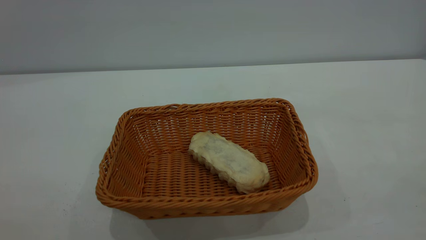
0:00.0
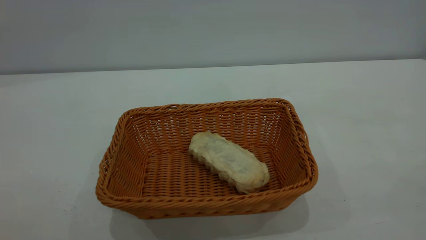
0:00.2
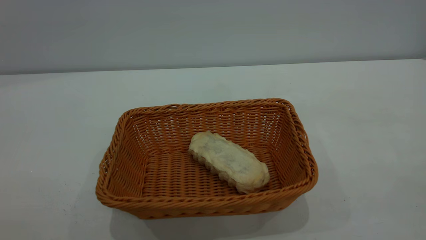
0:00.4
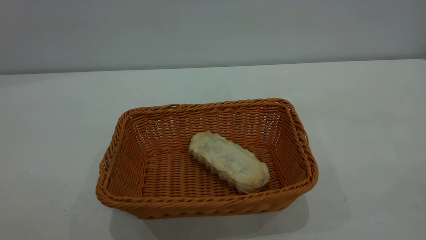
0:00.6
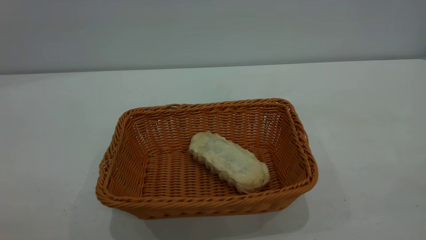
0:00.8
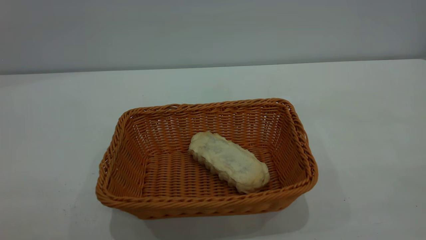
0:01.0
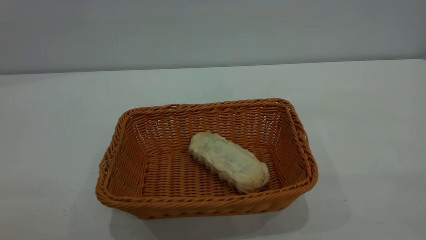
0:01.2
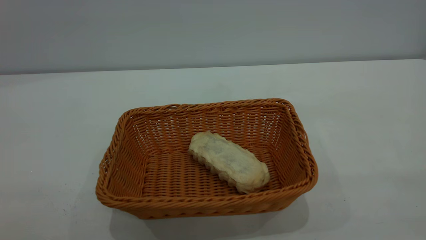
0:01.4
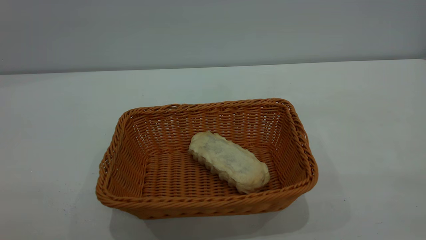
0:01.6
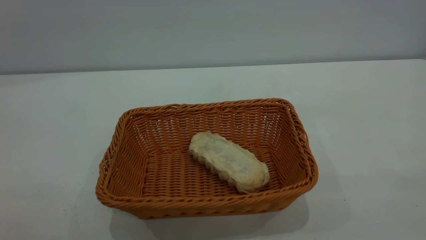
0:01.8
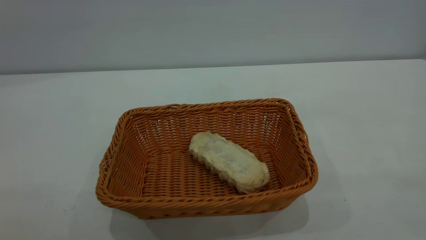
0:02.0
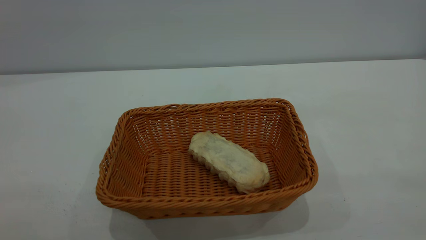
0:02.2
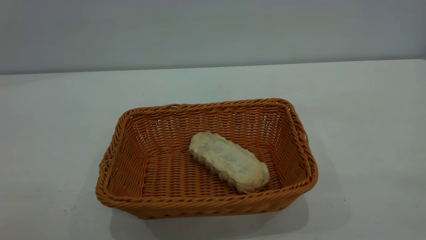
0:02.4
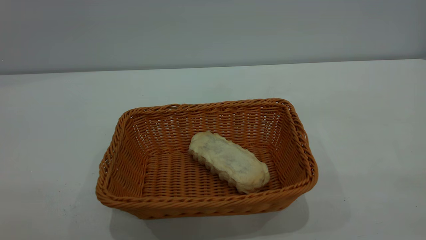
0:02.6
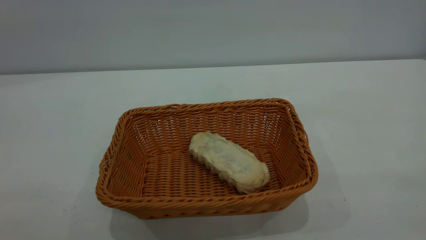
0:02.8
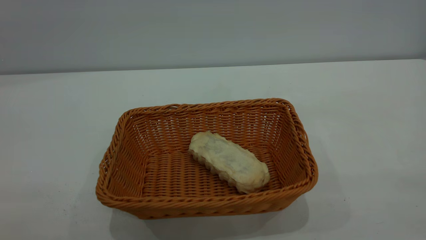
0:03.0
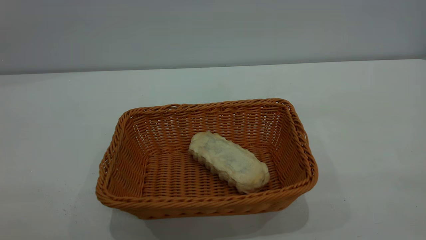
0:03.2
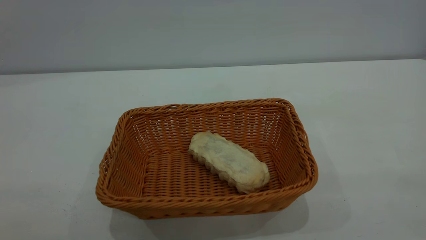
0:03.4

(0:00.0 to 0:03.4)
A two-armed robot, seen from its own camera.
Task of the whole recording: One hand grasps the yellow basket and places it in the middle of the table, while the other hand picks up the long bread and puts it into the yellow basket.
0:01.6 - 0:03.4: Neither gripper changes place.

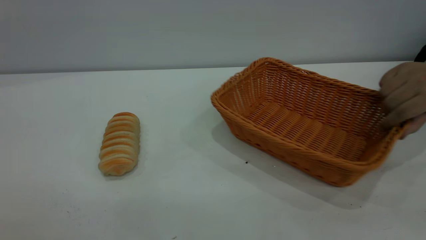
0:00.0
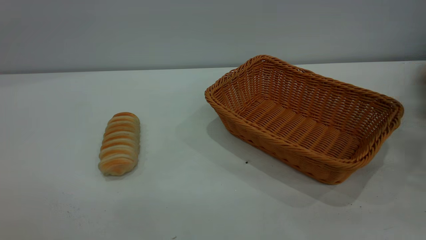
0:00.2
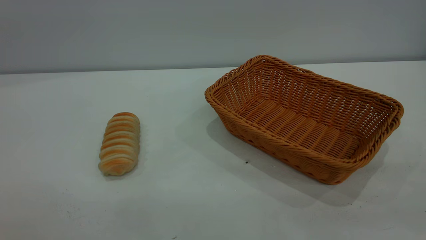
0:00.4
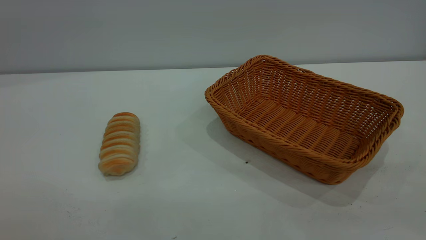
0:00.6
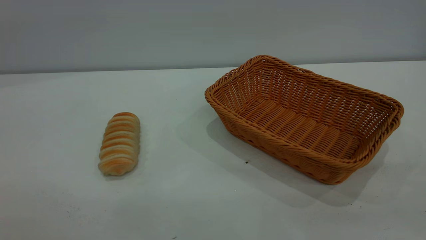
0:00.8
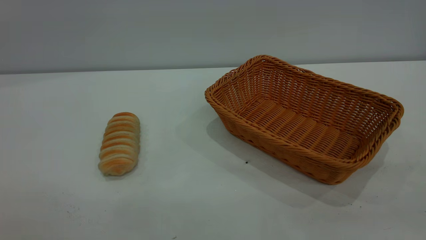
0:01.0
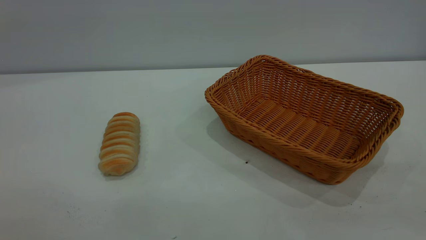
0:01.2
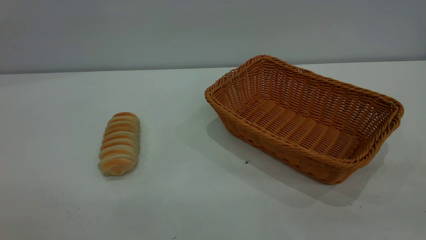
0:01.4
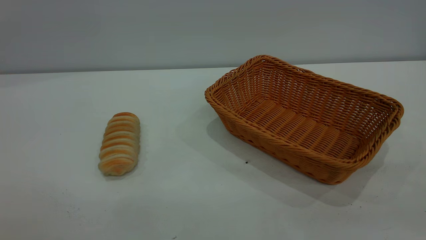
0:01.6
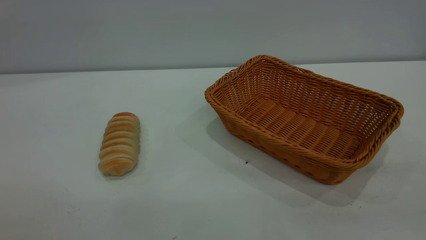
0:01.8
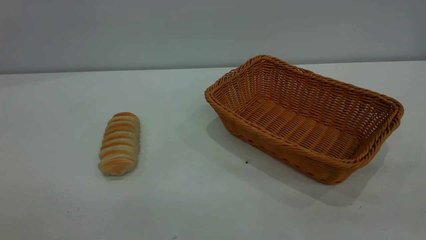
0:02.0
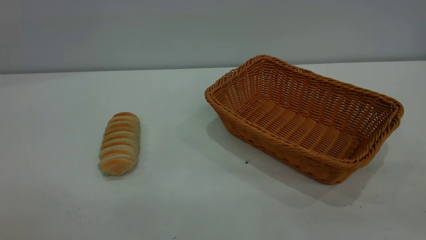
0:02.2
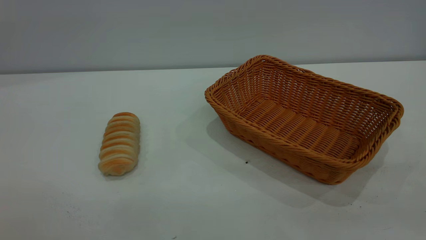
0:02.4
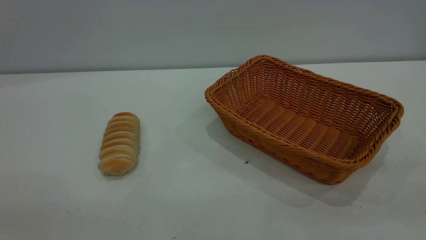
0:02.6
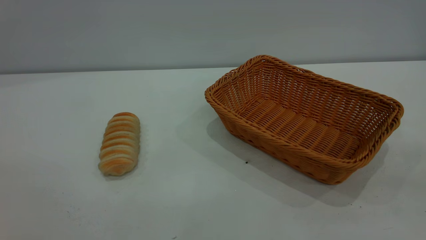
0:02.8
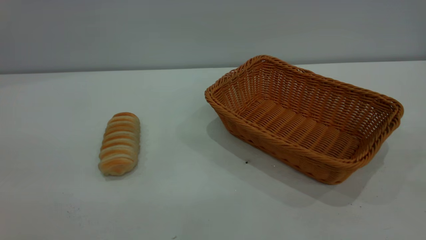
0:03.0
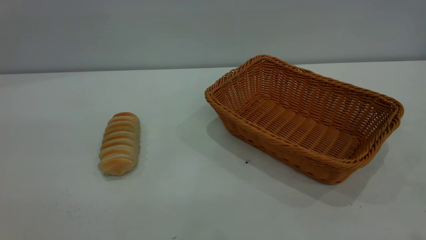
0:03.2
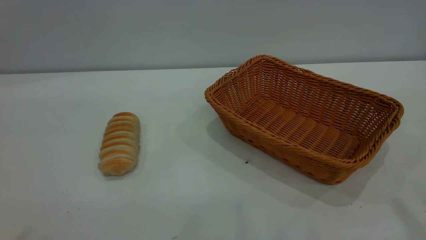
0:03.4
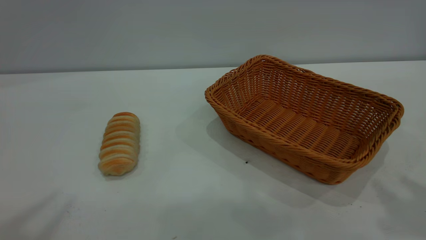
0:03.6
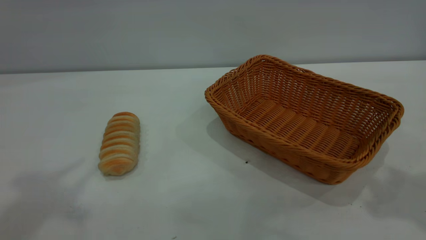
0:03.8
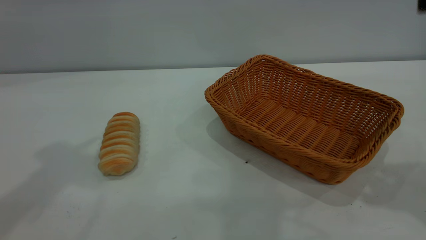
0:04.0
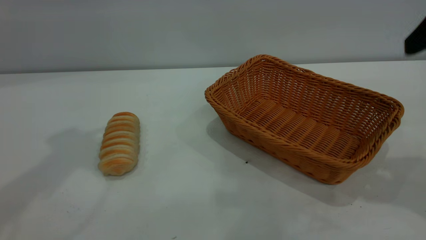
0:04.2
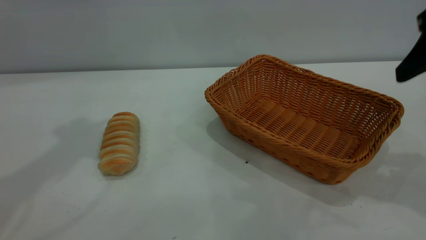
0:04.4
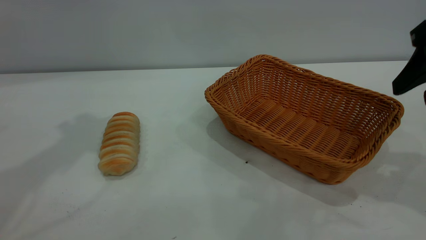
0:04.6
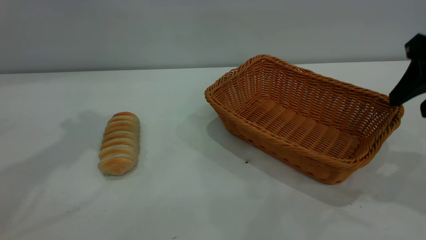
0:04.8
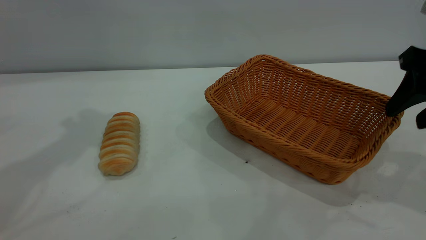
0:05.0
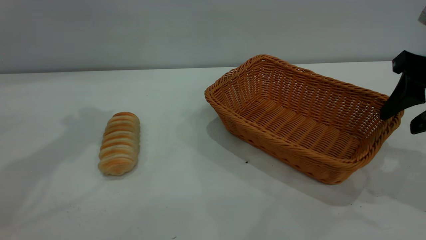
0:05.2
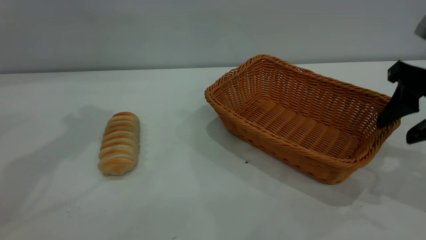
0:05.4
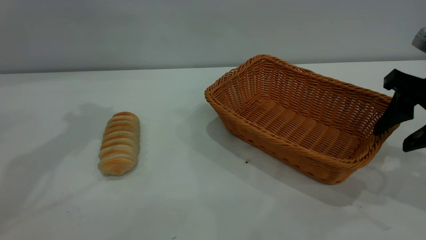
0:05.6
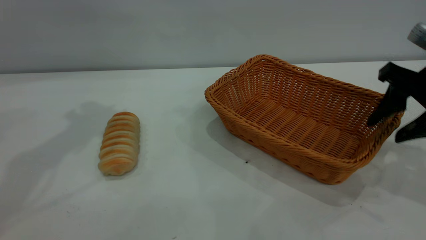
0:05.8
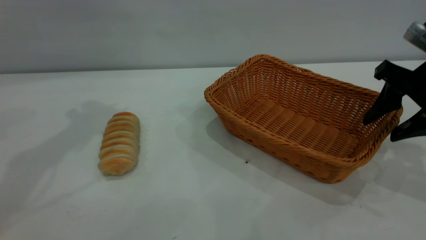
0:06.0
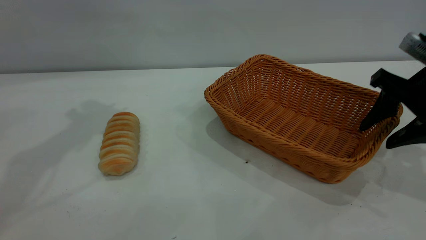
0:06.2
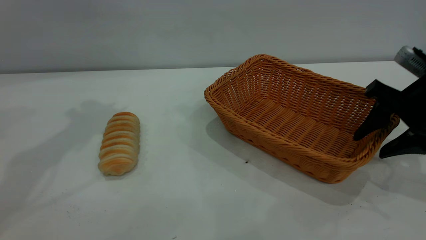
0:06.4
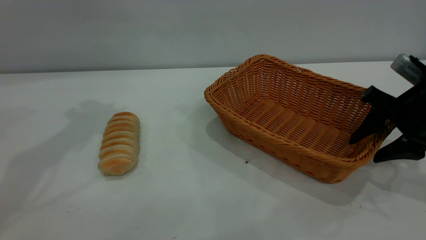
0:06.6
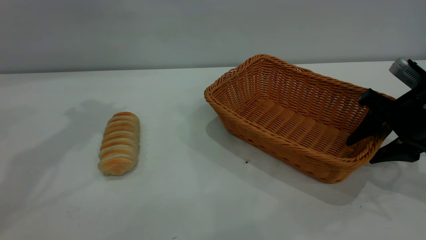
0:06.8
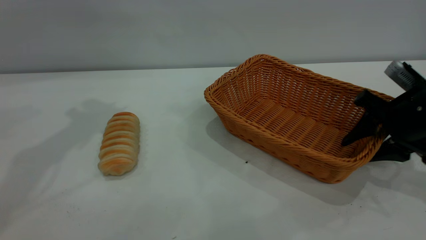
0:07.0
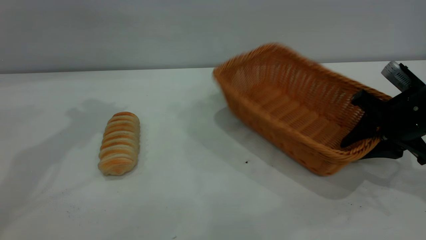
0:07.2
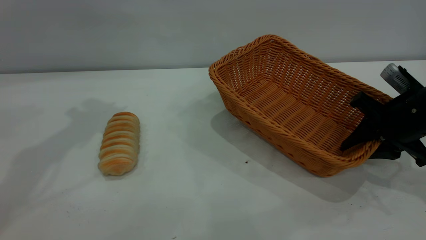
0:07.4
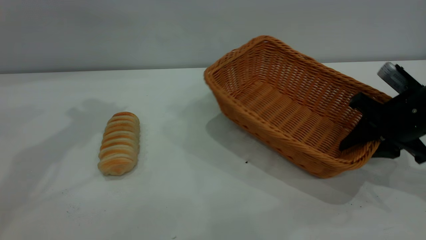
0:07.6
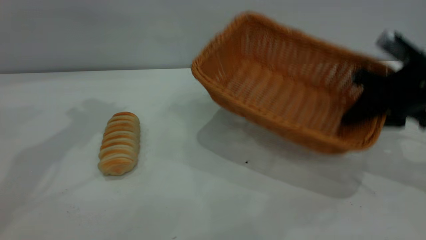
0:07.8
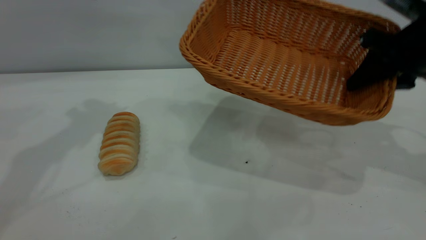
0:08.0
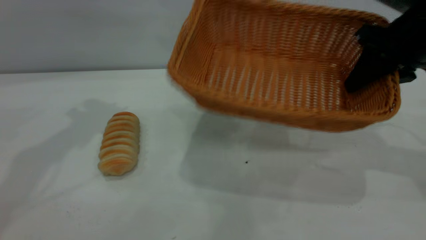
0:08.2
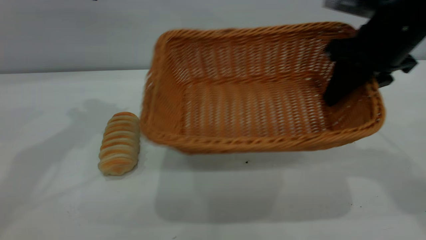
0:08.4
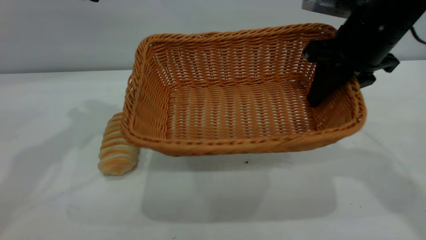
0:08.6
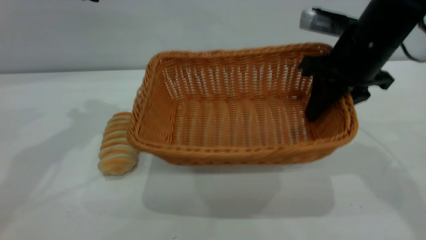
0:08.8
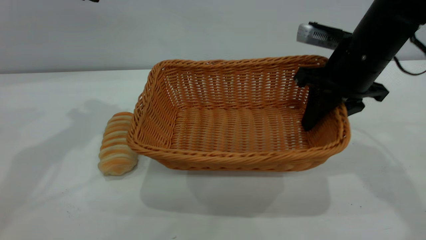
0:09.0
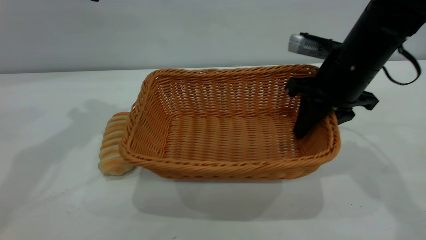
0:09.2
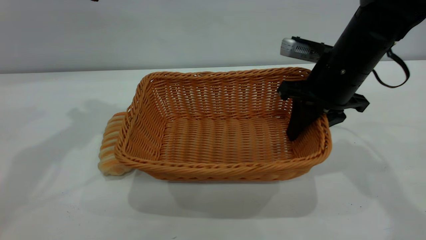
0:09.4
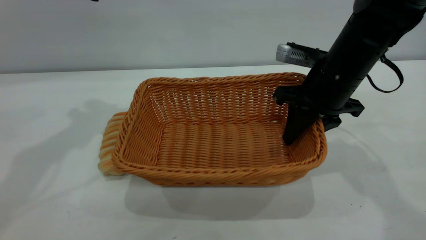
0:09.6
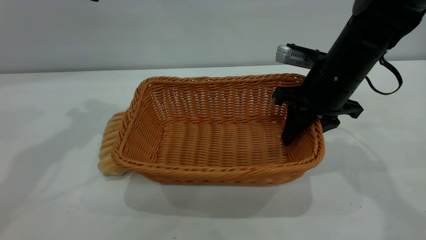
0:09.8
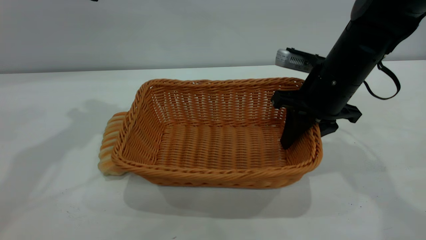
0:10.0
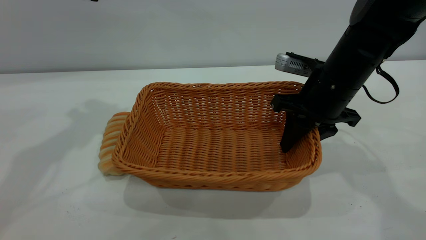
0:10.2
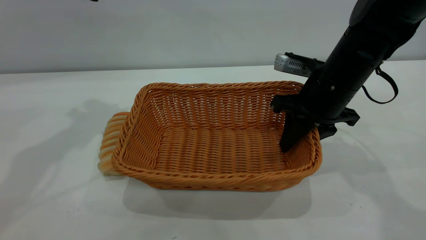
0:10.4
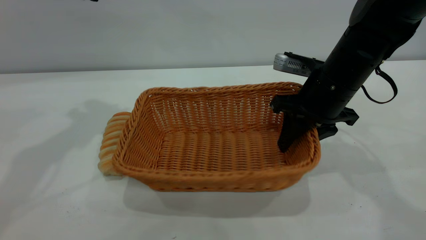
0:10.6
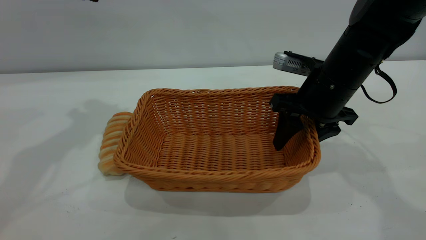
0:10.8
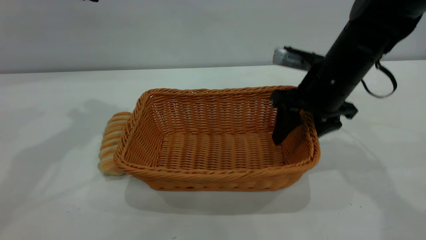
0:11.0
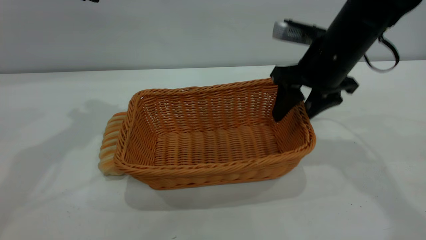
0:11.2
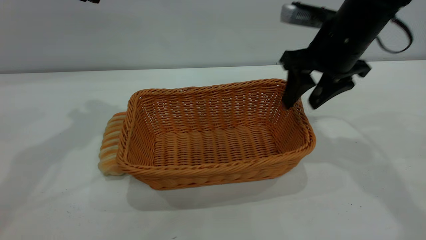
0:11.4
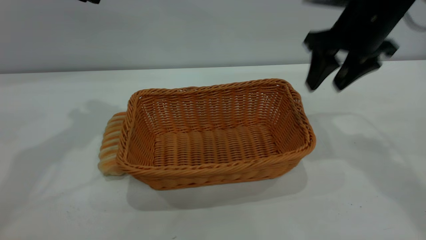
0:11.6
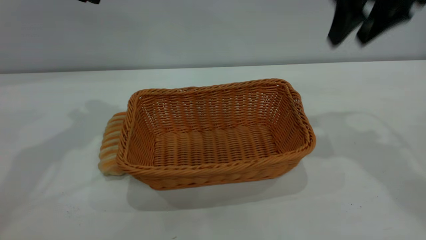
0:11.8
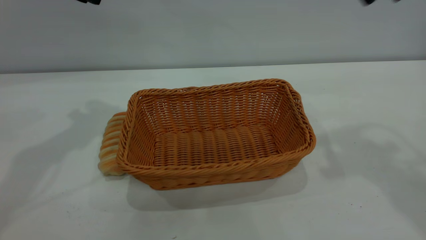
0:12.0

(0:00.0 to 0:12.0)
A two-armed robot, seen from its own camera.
Task of the whole recording: One hand grasps the yellow basket and places it in the middle of the table, while the other hand picks up the long bread and puts it into the yellow basket.
Step, 0:00.0 - 0:11.4: Move the basket to the center of view.
0:00.0 - 0:01.6: Both grippers stay about where they are.
0:03.0 - 0:04.4: The right gripper heads forward and downward, covering some 30 cm.
0:04.4 - 0:06.0: The right gripper heads downward, covering about 10 cm.
0:06.0 - 0:07.6: The right gripper heads downward, covering some 5 cm, and closes up.
0:07.6 - 0:09.0: The right gripper heads to the left and upward, covering roughly 10 cm.
0:09.0 - 0:10.4: The grippers stay close to where they were, moving slightly.
0:10.4 - 0:12.0: The right gripper travels upward by about 25 cm, and opens up.

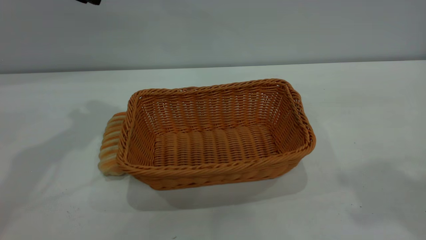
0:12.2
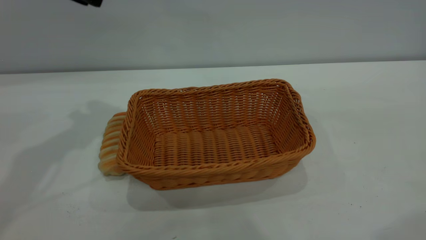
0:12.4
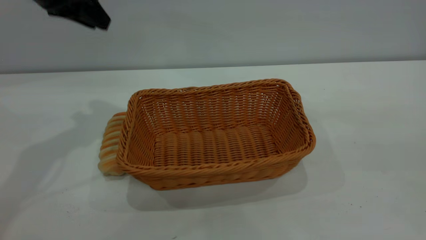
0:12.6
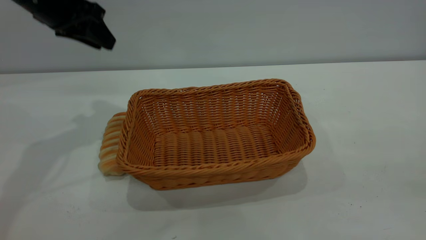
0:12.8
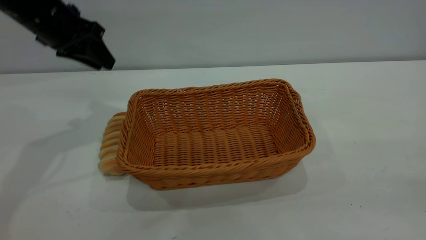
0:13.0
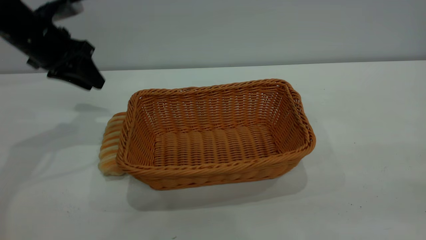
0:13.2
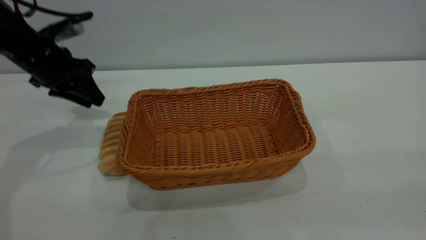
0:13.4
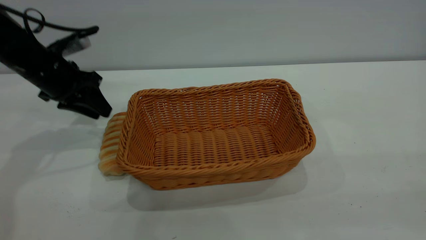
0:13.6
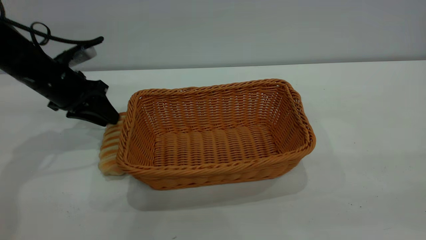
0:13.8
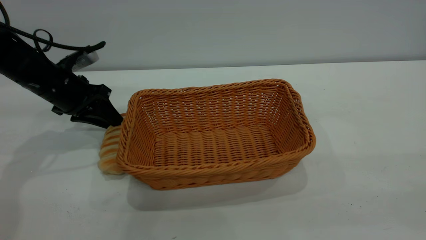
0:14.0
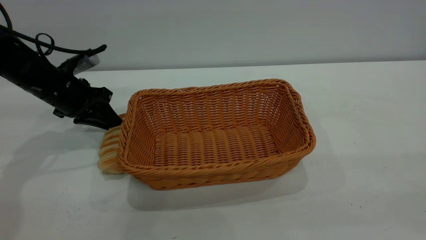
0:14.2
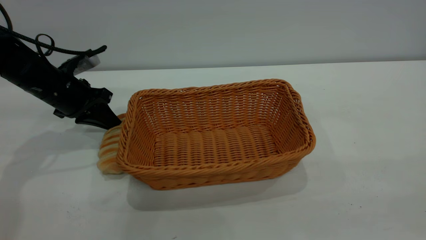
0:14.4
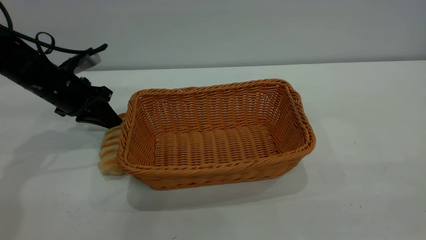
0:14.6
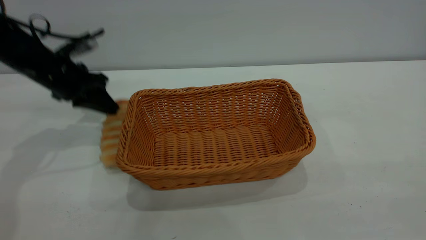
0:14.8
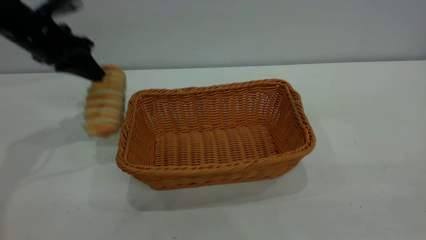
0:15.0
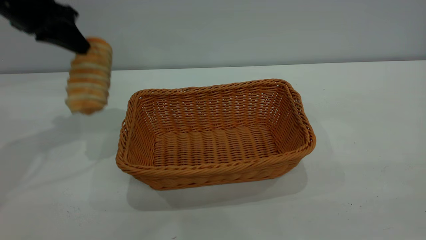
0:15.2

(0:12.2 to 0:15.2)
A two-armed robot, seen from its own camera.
Task of the whole recording: One hand grasps the yellow basket and places it in the middle of the table, while the other hand picks up the long bread and puts it into the yellow basket.
0:12.2 - 0:13.8: The left gripper moves downward, roughly 20 cm.
0:13.8 - 0:15.2: The left gripper moves upward, some 15 cm, and closes.
